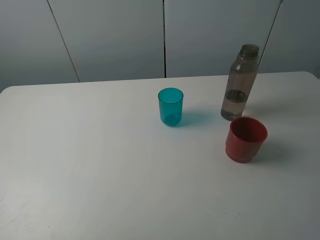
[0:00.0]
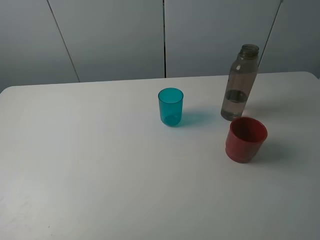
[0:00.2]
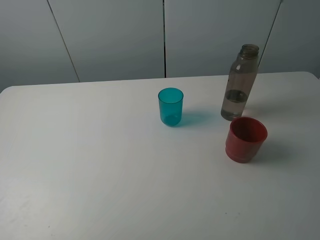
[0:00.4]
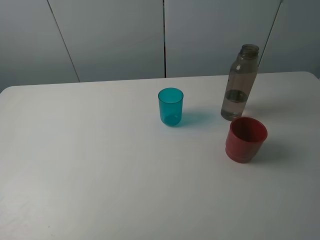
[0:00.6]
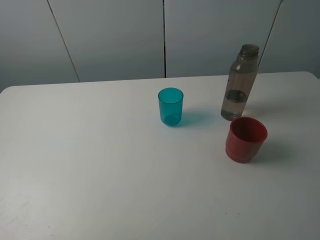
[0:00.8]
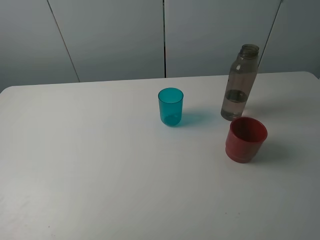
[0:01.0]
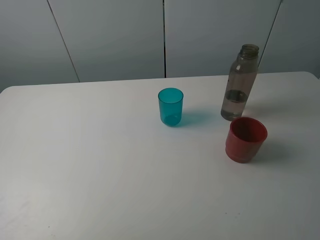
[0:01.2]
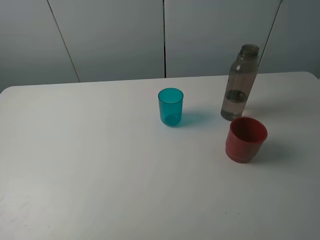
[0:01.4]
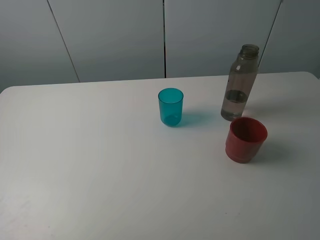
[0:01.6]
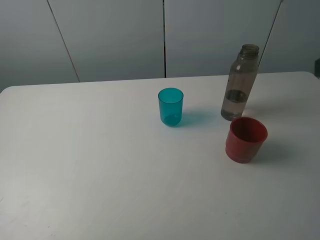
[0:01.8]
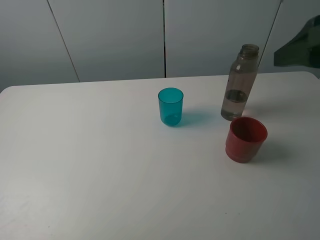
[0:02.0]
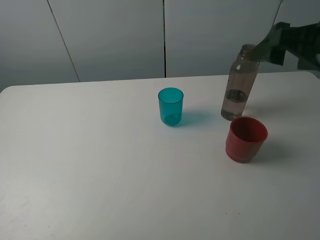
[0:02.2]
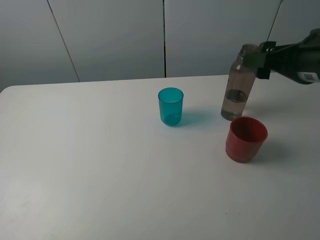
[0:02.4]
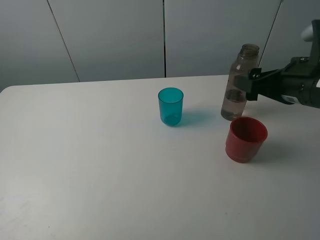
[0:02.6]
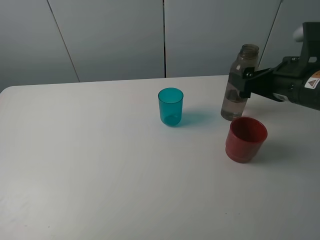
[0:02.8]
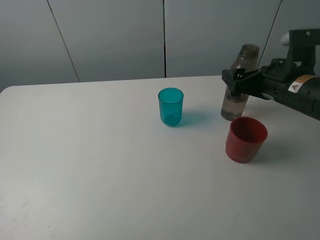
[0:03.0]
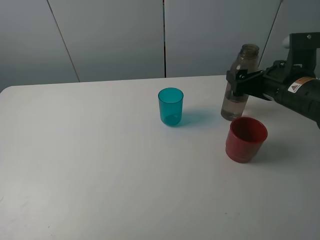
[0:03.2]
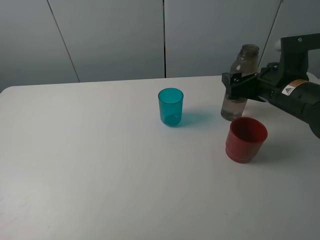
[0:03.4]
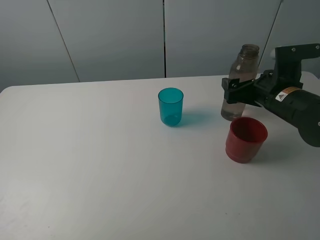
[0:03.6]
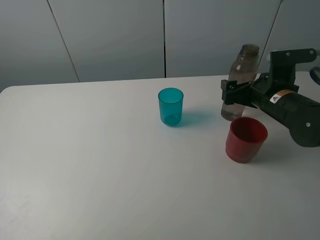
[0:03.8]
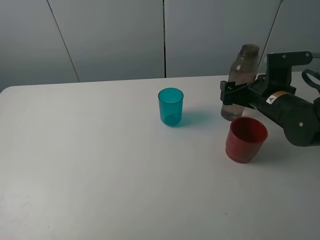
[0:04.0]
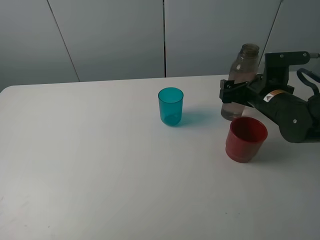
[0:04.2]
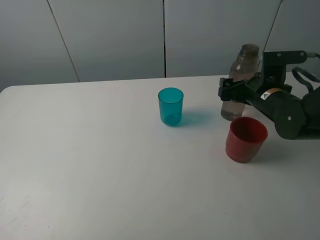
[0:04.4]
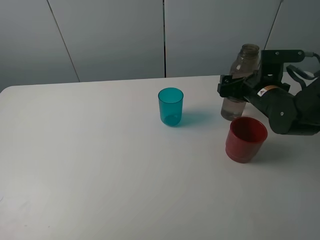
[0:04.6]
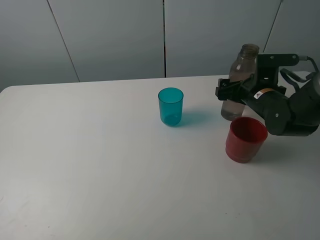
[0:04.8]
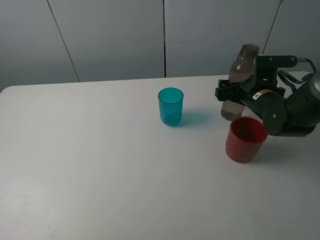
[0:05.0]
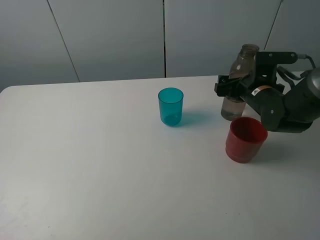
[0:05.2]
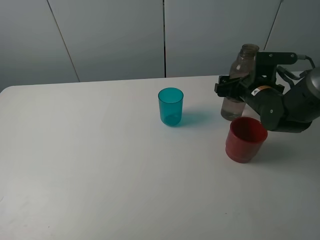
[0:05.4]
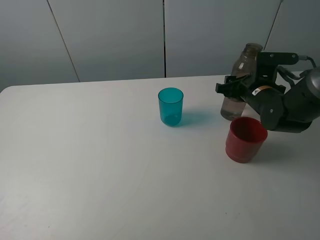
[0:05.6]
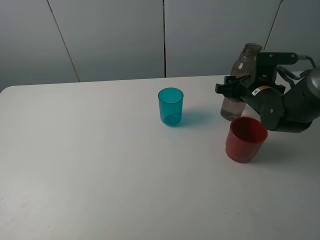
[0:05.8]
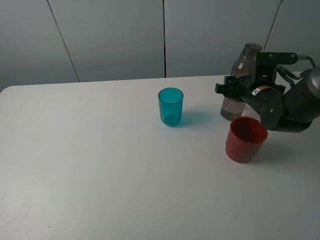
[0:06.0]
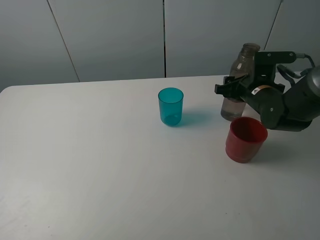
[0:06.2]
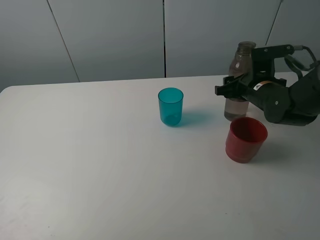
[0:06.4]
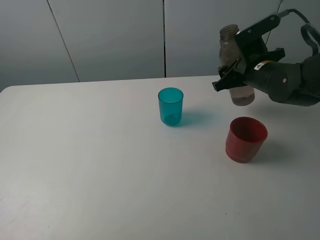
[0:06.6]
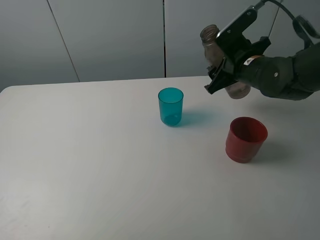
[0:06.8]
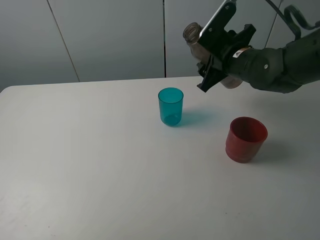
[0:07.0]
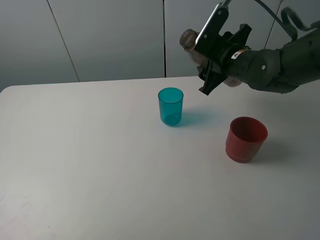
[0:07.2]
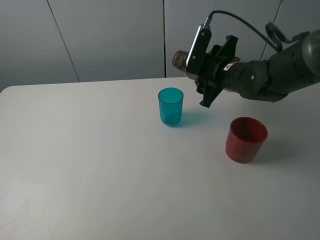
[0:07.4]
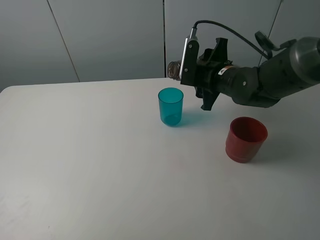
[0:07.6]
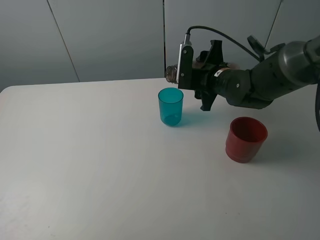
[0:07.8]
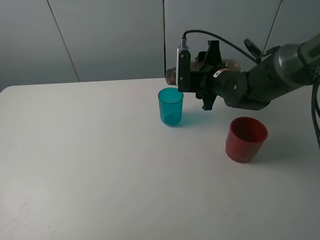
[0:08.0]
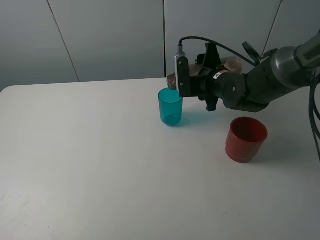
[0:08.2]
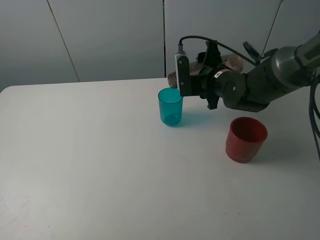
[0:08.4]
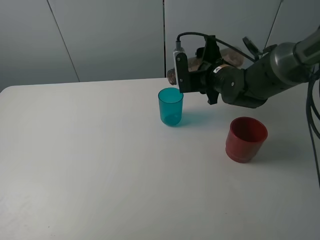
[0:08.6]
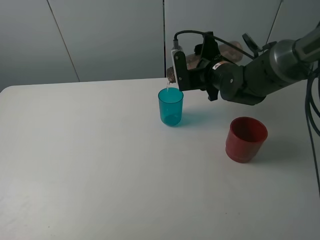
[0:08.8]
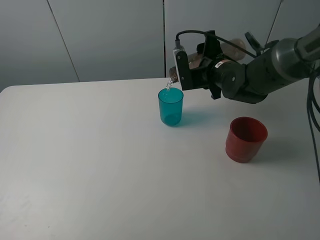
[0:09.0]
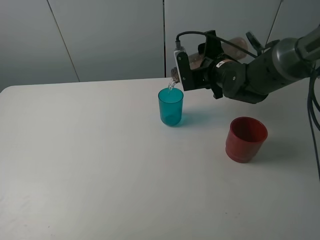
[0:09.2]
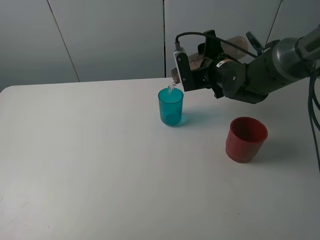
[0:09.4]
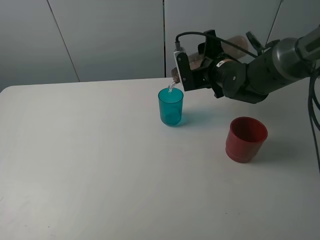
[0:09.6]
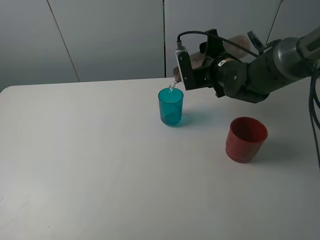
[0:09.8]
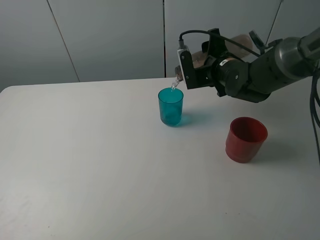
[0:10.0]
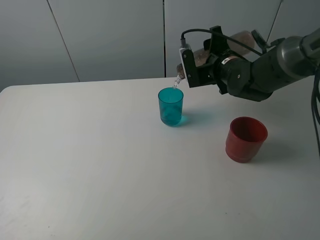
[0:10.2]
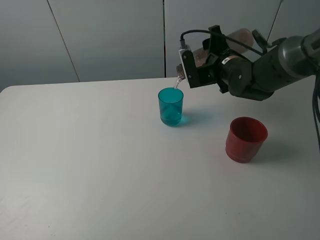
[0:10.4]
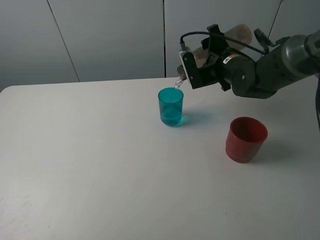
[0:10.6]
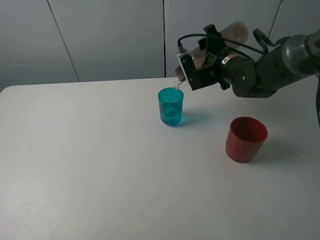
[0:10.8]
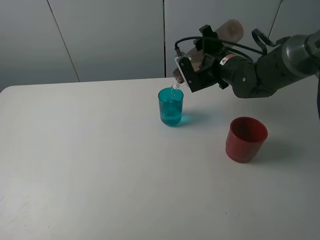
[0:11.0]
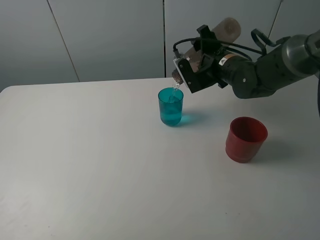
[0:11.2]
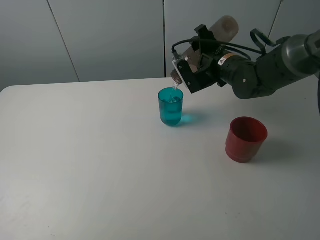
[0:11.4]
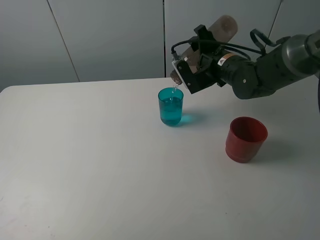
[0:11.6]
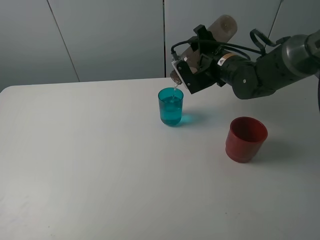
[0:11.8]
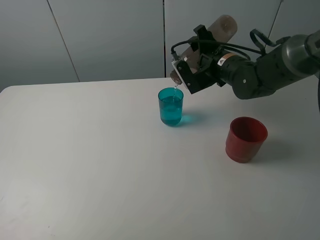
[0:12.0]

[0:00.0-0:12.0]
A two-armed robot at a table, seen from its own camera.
Task of the whole recording: pick up the bottle and pour water into the cup, then pick up the cup containing water and pour it into another cup.
Step, 0:00.0 to 0:05.6: Grasp the brown bottle with the right gripper.
0:01.6 to 0:03.0: The right gripper shifts approximately 25 cm forward and downward.
0:03.0 to 0:04.4: The right gripper is displaced downward by approximately 5 cm.
0:04.4 to 0:06.0: The right gripper closes its fingers.
0:06.0 to 0:07.6: The right gripper travels to the left by roughly 10 cm.
0:09.0 to 0:10.4: The grippers stay close to where they were, moving slightly.
0:10.4 to 0:12.0: There are only small adjustments of the grippers.

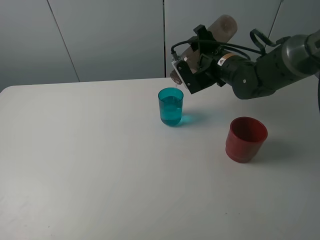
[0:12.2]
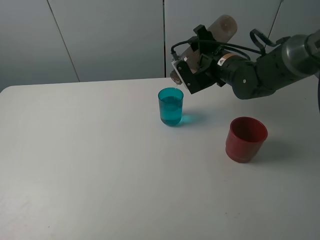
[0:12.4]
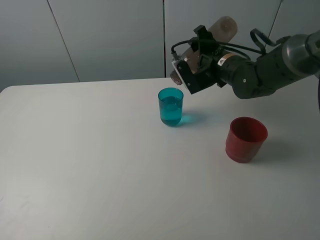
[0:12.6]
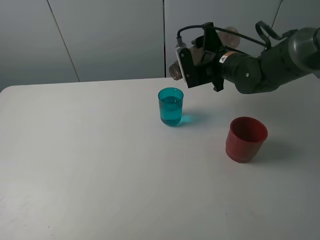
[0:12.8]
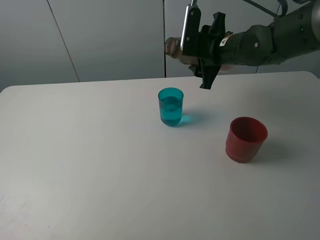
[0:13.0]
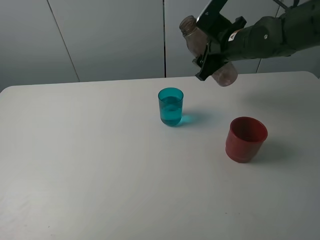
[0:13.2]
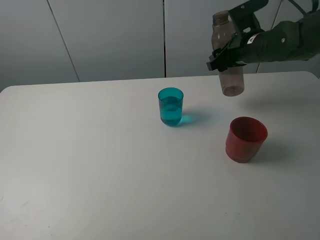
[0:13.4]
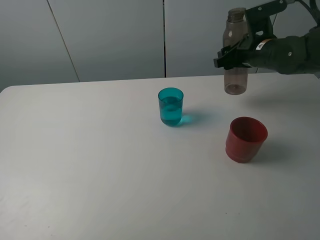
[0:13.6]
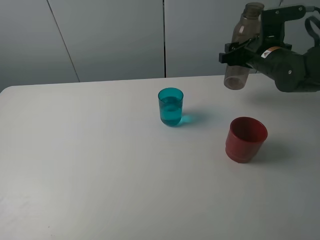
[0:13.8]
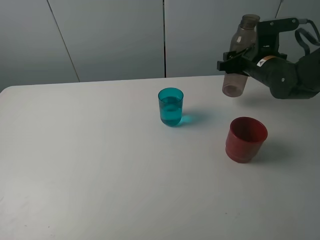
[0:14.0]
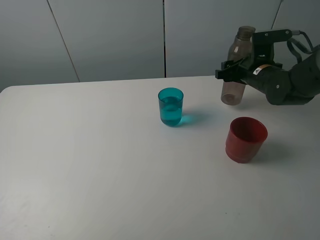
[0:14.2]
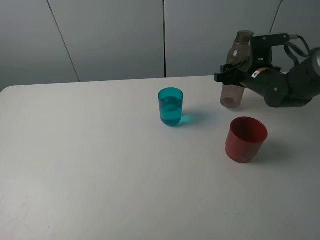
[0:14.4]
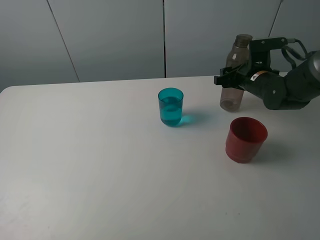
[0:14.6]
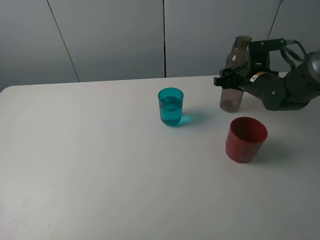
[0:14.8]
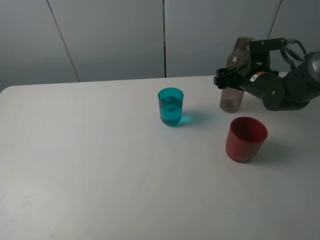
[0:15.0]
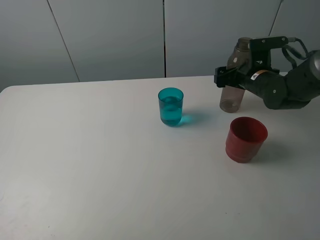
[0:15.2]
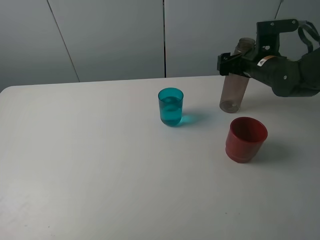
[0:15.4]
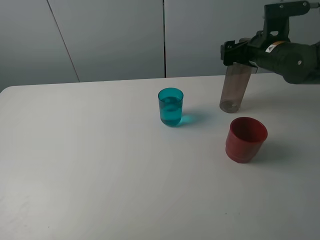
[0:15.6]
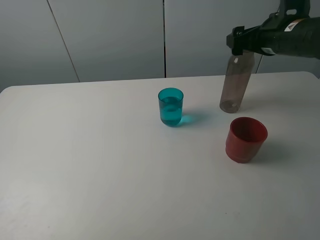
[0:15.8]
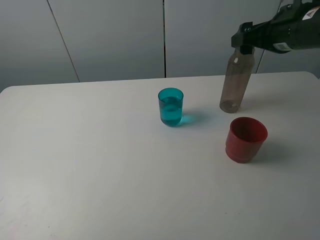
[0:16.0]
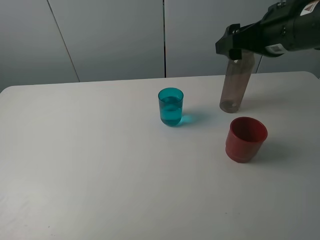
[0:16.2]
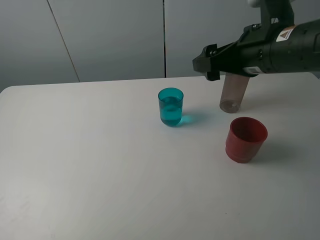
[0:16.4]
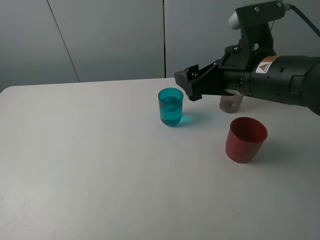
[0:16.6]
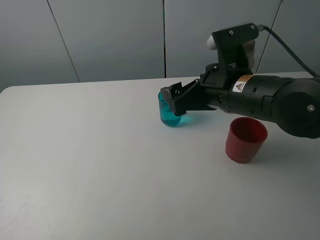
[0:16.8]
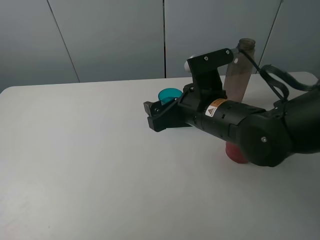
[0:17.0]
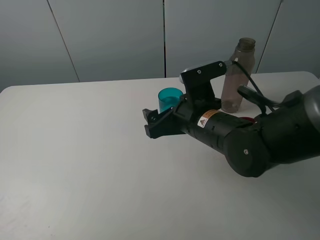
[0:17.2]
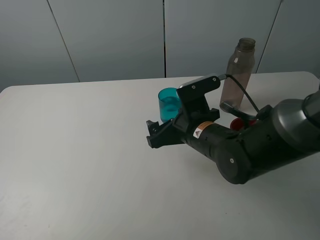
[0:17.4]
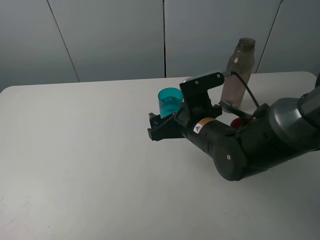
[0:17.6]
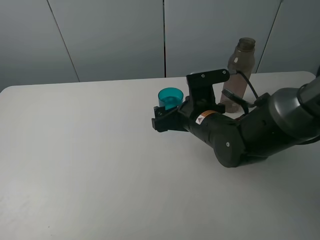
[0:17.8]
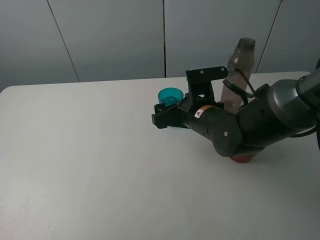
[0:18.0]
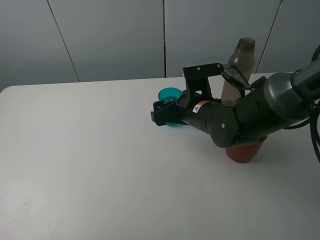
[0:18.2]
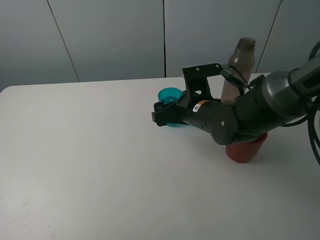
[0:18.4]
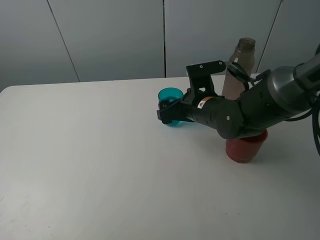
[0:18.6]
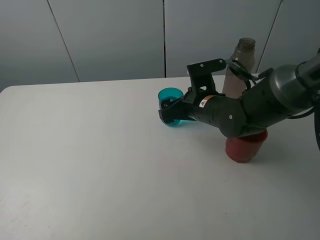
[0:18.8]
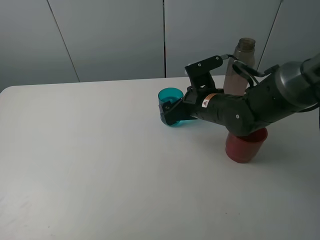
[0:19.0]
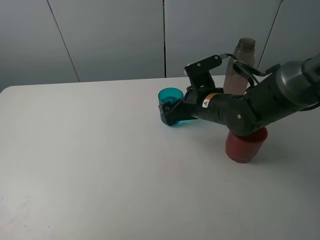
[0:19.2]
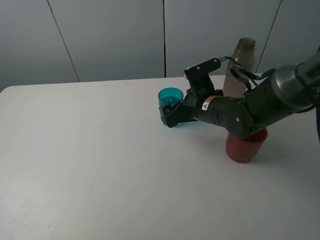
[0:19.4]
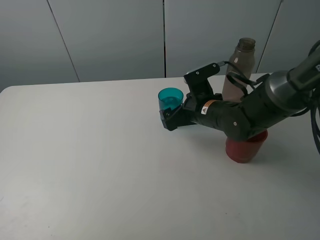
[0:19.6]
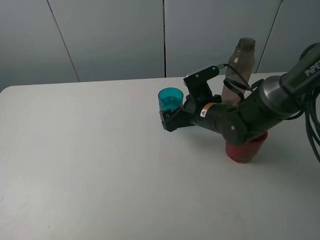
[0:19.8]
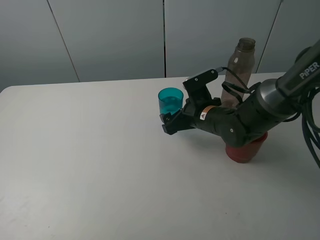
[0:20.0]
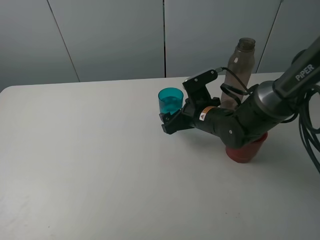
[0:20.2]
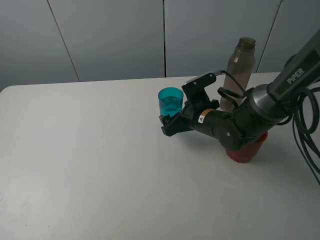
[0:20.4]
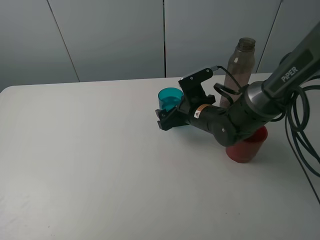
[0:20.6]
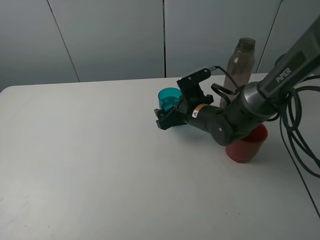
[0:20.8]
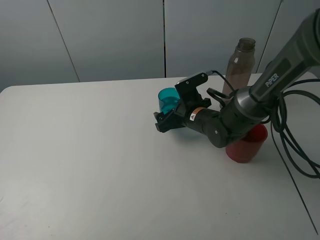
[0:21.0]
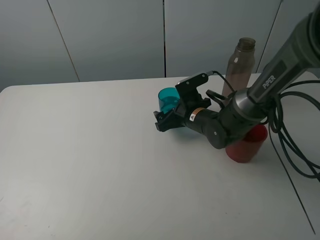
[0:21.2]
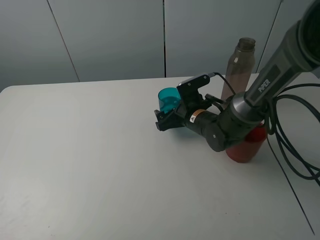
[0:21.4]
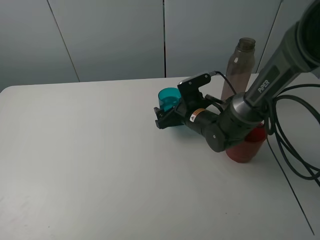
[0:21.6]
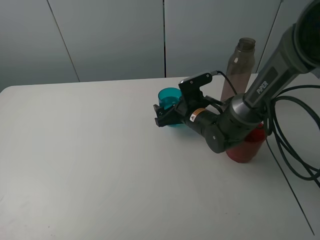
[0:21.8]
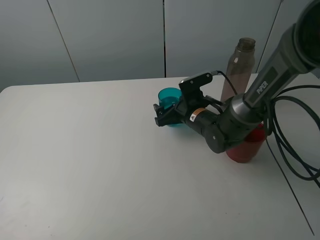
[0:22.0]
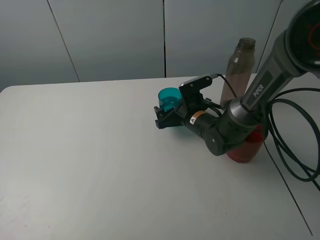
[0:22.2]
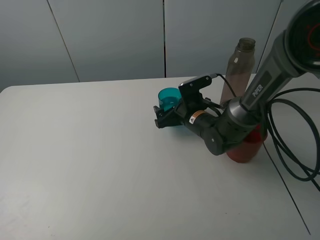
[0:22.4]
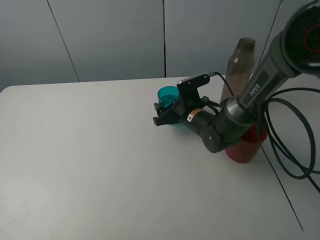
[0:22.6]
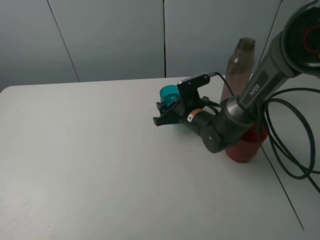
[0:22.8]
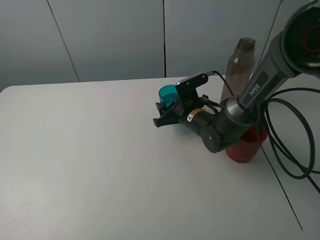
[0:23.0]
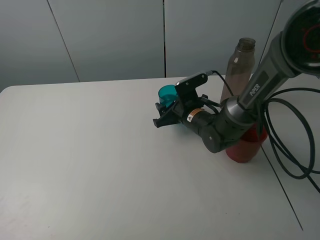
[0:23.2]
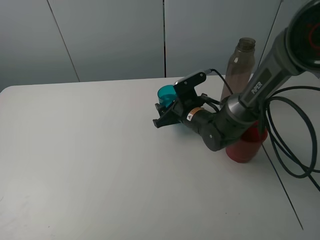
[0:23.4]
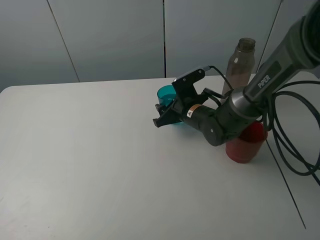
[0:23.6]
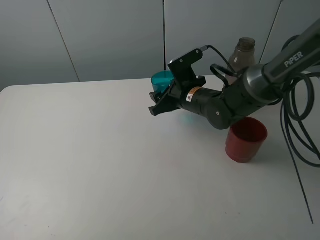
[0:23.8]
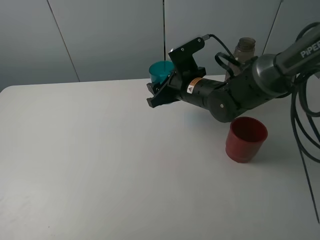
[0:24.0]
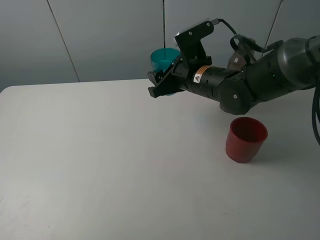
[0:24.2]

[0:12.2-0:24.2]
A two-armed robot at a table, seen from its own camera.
Task of the whole recording: pick up the bottle and pour water into the cup, then pick up the cup containing water and pour it into another cup.
Step, 0:12.6 to 0:15.2: Place the brown bottle with the right gripper.
Step, 0:15.4 to 0:22.8: Grasp the blue cup with the right gripper.
0:12.2 to 0:13.8: The right gripper is displaced to the right by some 10 cm.
0:13.8 to 0:15.2: The right gripper goes roughly 5 cm downward, and opens up.
0:15.2 to 0:16.6: The right gripper is displaced backward, upward and to the left by roughly 20 cm.
0:16.6 to 0:18.2: The right gripper is displaced downward and to the left by some 10 cm.
0:18.2 to 0:19.8: The grippers make only small movements.
0:19.8 to 0:21.2: The grippers make only small movements.
0:21.2 to 0:22.6: The right gripper closes.
0:22.6 to 0:24.2: The right gripper goes approximately 15 cm upward.
